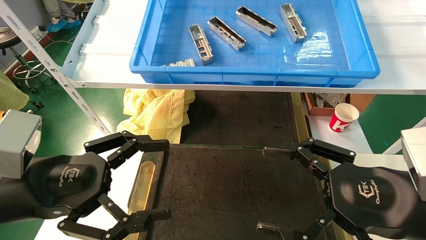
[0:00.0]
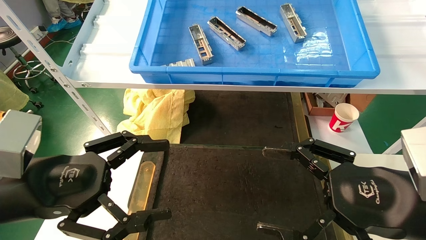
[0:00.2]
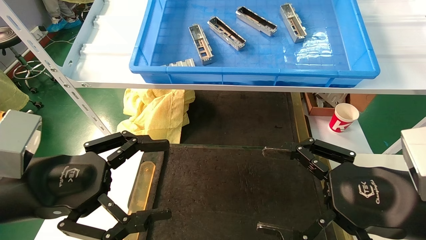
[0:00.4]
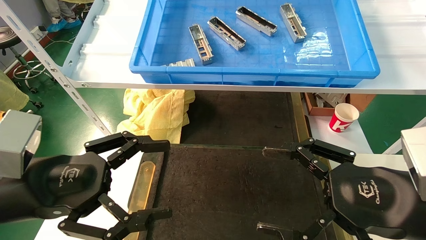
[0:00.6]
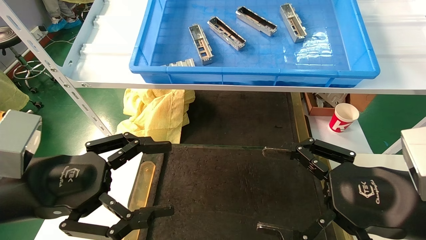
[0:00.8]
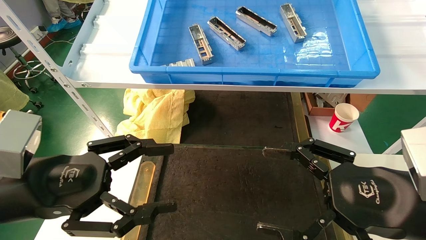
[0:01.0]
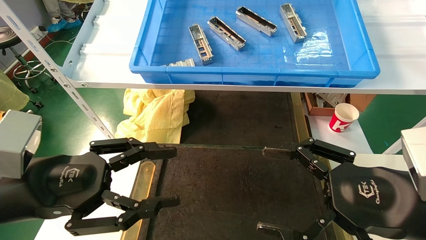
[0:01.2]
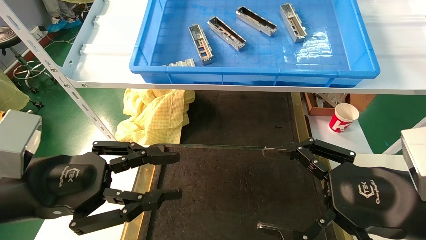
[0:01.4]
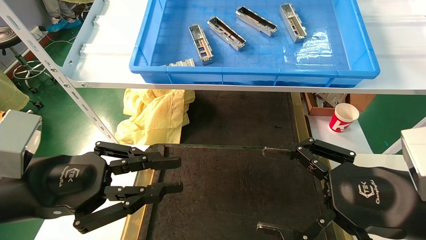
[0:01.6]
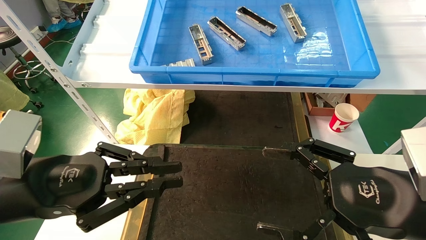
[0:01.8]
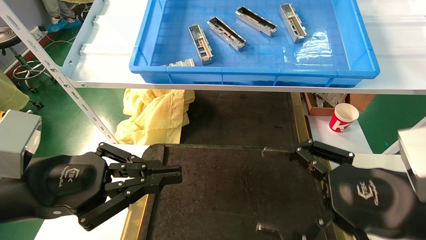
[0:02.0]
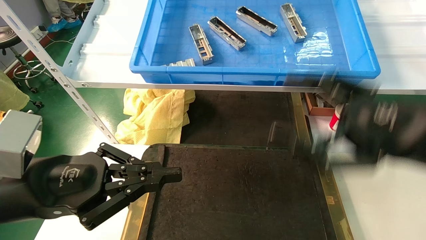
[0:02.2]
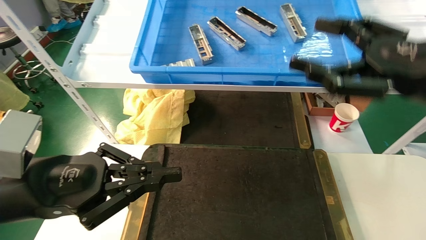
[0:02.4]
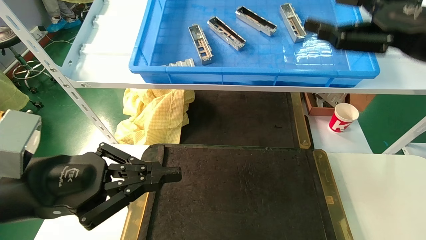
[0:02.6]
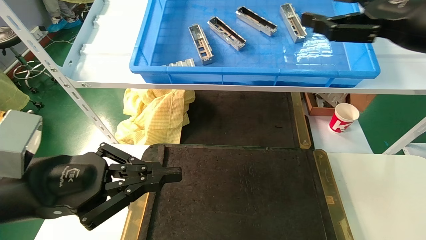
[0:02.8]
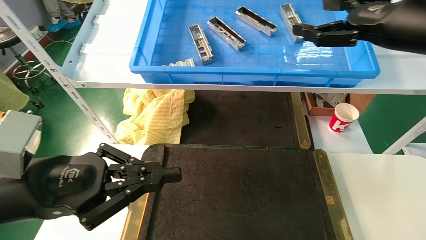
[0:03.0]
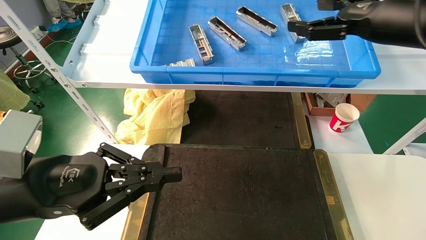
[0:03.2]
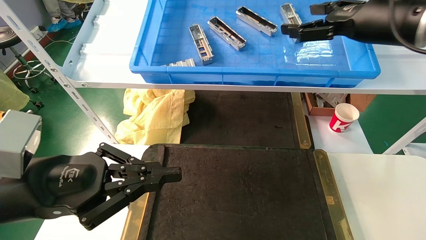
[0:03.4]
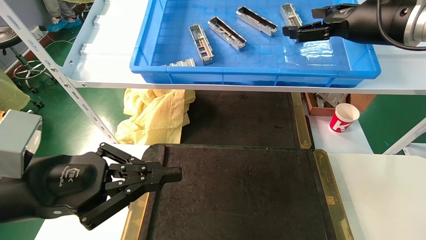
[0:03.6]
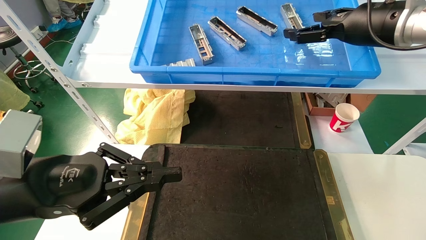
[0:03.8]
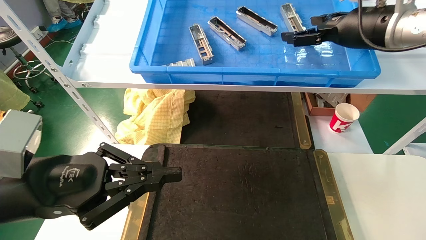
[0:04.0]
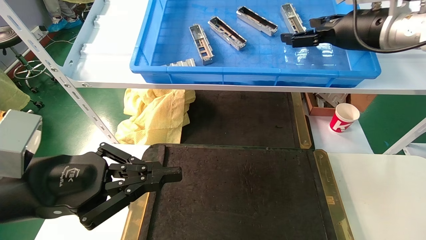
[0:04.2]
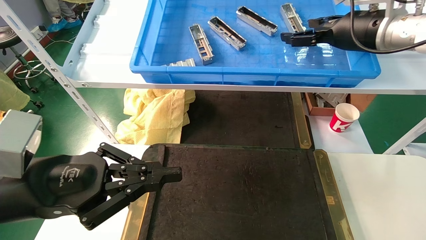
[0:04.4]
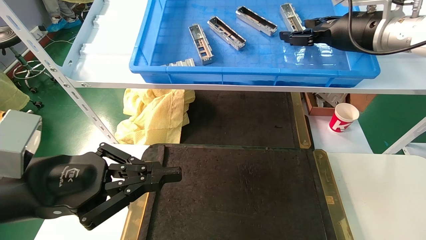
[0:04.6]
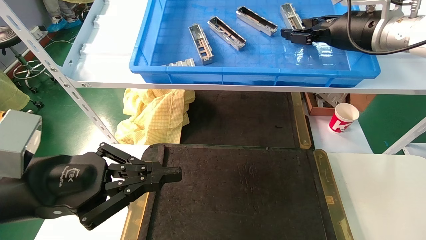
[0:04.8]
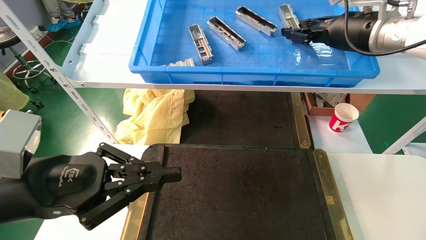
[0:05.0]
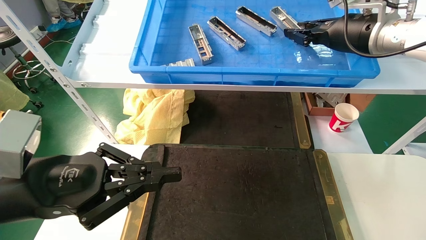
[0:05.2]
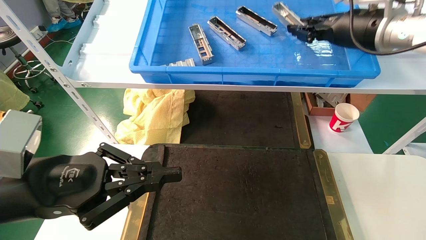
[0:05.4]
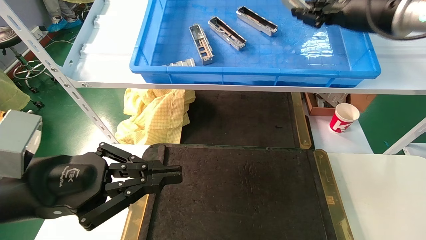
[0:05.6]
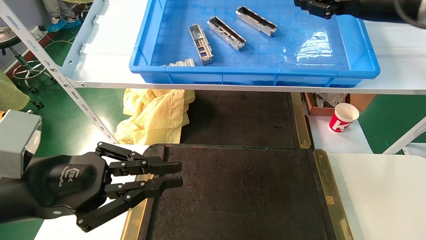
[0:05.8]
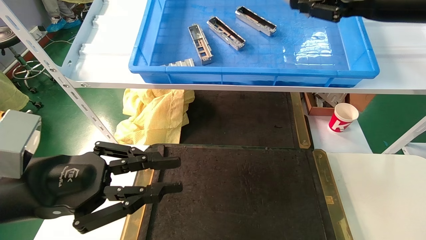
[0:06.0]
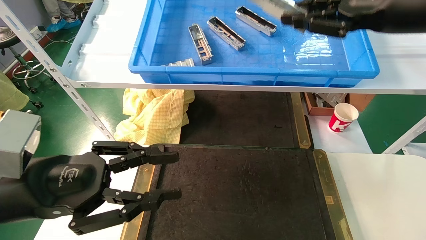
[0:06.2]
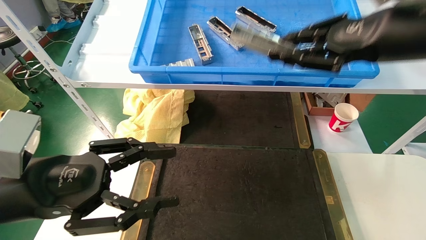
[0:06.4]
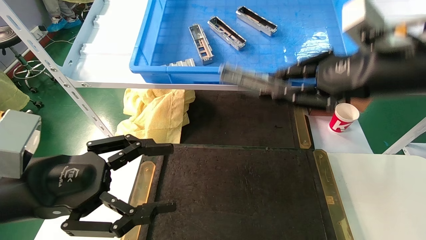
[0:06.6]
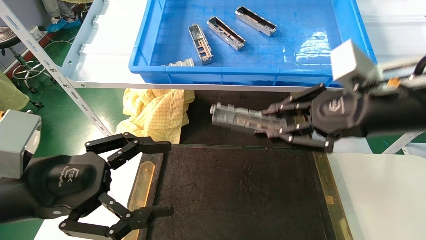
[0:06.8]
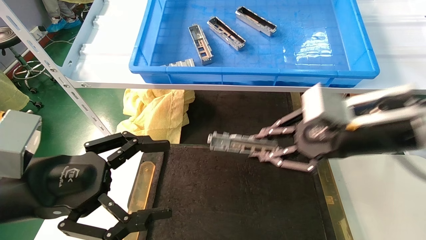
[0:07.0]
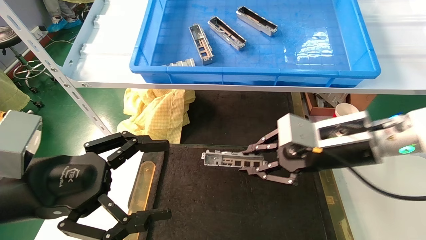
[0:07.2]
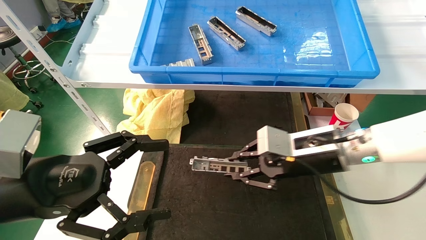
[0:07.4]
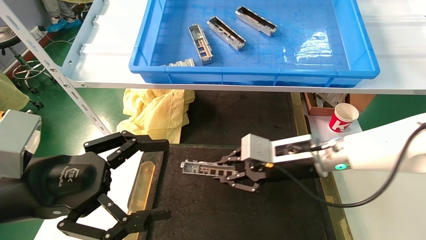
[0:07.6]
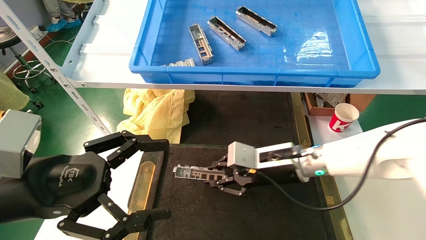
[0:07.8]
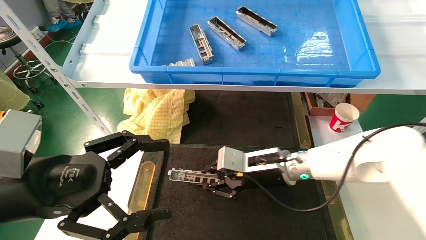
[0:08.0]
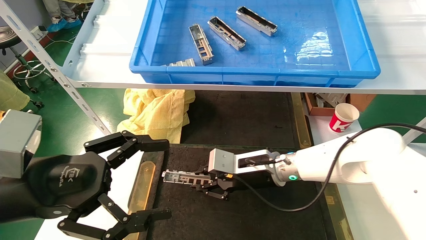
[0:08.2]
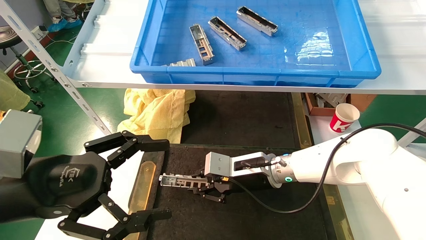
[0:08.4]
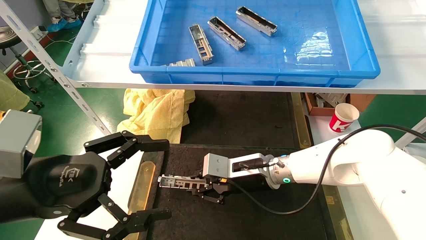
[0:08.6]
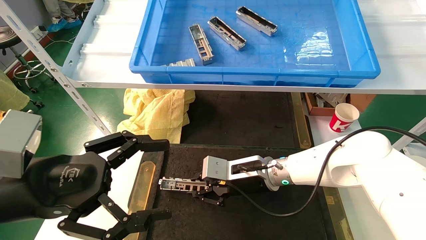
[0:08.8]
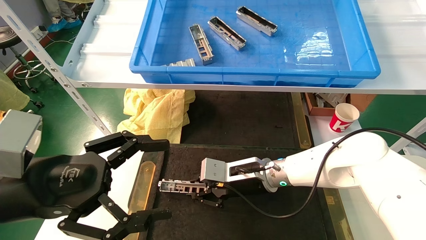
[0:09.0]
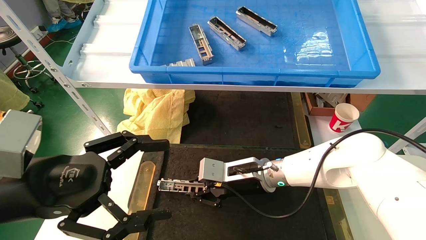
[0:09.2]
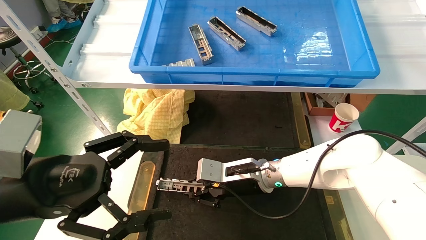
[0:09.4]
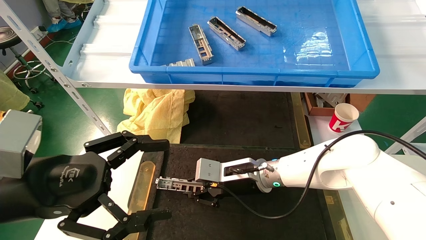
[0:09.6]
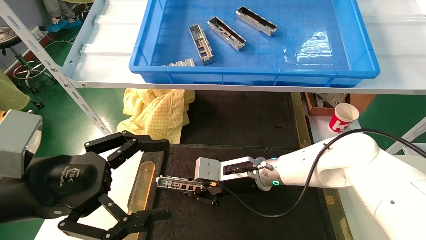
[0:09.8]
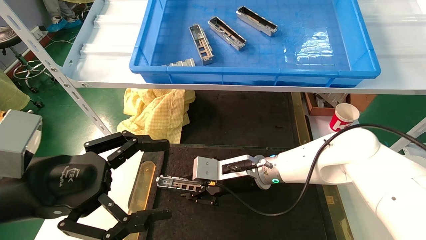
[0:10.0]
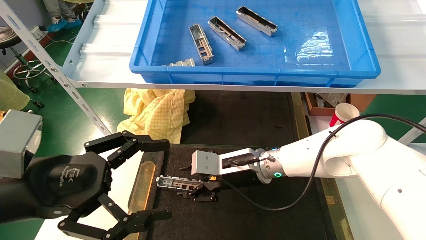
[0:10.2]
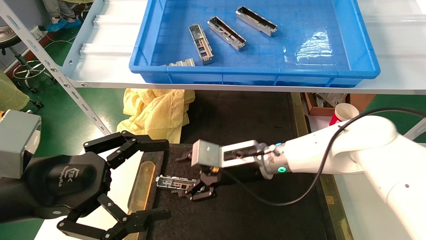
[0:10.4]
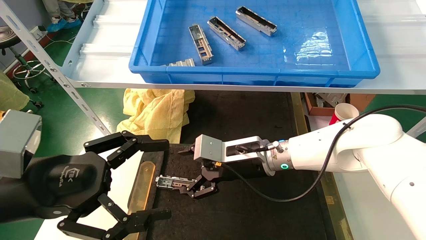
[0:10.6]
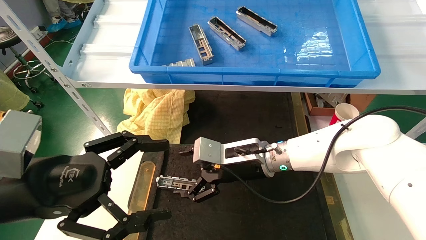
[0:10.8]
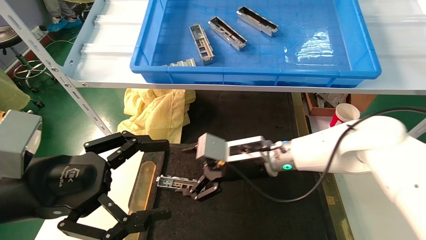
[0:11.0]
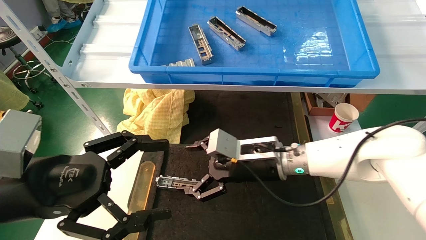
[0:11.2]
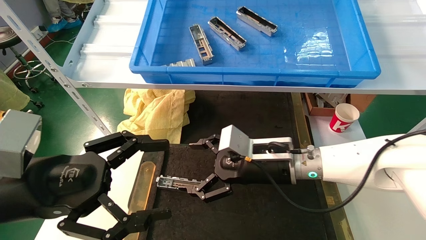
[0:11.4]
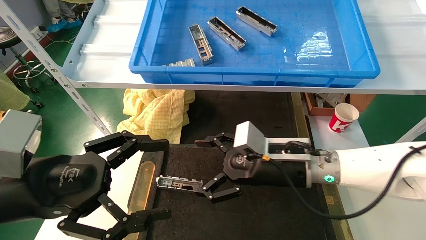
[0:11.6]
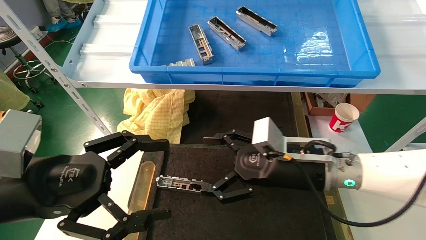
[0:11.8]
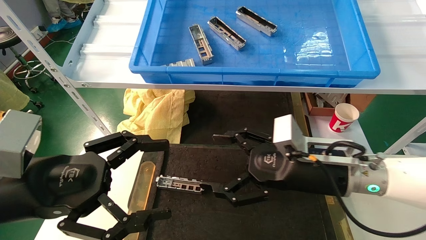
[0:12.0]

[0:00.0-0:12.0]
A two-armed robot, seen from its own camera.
Task of the whole recording: grasp the part and place them on the black container.
Step, 0:02.2 to 0:05.6: Pick up and lift the front USB bracket from the feeding area.
Step, 0:05.8 to 0:10.0: Place the front USB bracket into the box.
0:00.0 to 0:01.6: The left gripper closes its fingers.
0:01.6 to 0:03.0: The left gripper closes its fingers. Meanwhile the right gripper moves upward and forward, about 20 cm.
0:03.0 to 0:04.4: The right gripper travels forward by approximately 10 cm.
0:04.4 to 0:06.0: The right gripper travels backward by about 10 cm, and closes its fingers.
0:06.0 to 0:07.6: The left gripper opens, while the right gripper shifts about 30 cm downward and to the left.
0:07.6 to 0:09.0: The right gripper heads to the left and downward, covering approximately 10 cm.
0:09.0 to 0:10.4: The right gripper opens up.
0:10.4 to 0:12.0: The right gripper travels to the right and backward by approximately 15 cm, and opens.

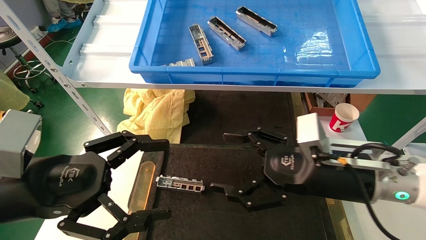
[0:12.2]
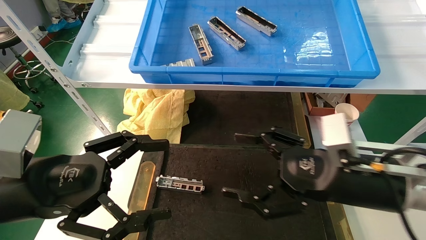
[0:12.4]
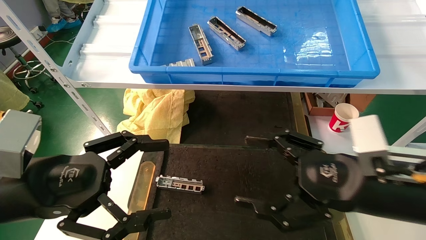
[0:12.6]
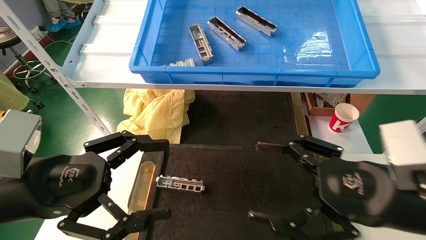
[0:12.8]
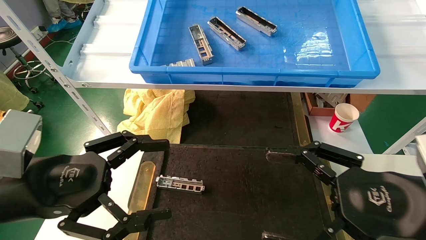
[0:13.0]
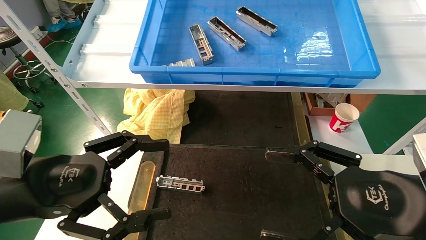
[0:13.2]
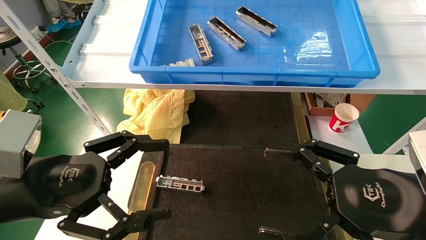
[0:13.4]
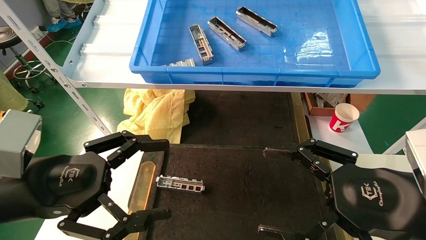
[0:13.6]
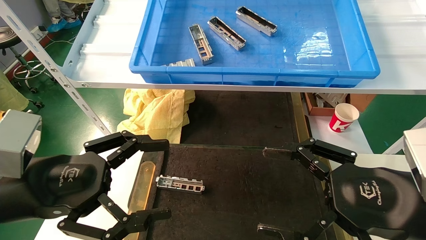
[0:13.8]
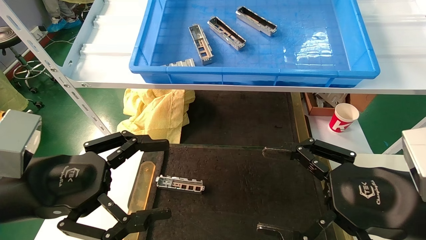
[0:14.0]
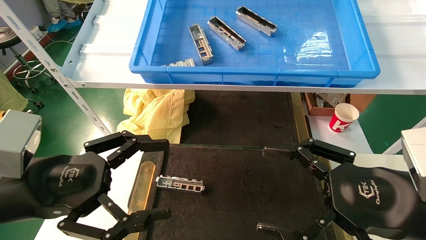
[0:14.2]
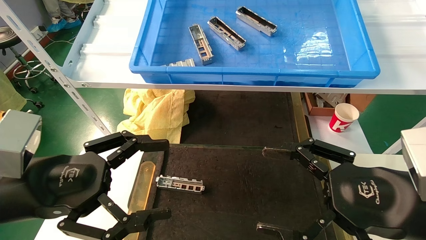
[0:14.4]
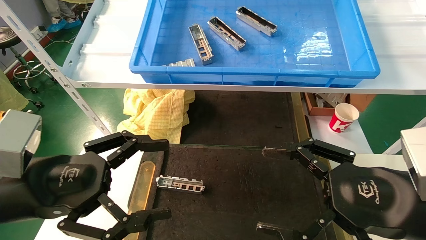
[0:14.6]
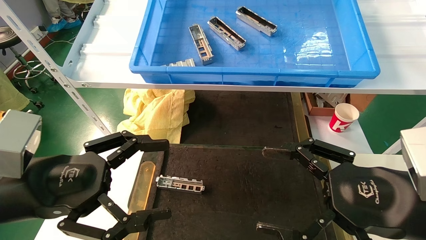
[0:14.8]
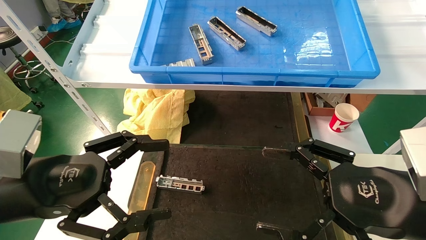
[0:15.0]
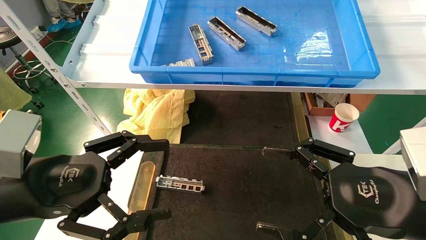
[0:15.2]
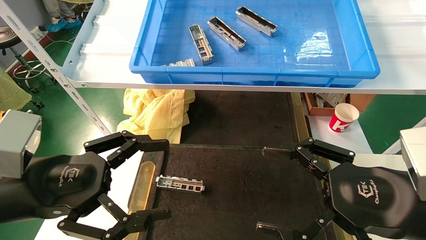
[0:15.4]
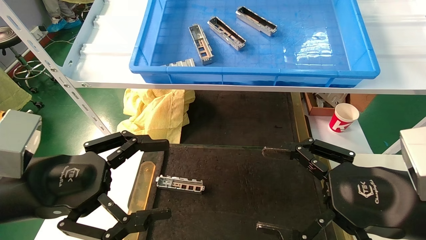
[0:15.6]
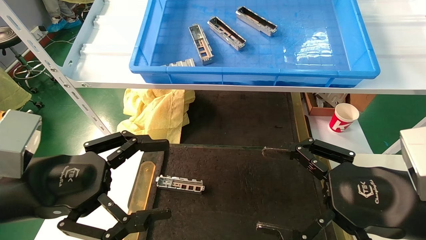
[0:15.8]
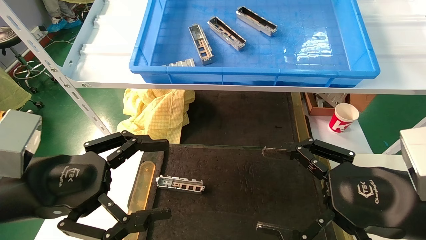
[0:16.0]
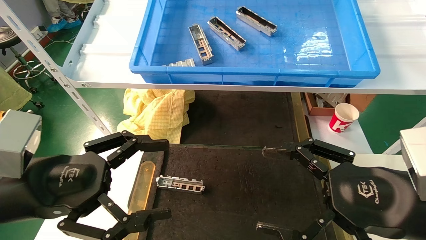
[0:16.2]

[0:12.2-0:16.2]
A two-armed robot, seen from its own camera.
Task of the whole recording: grasp the part and place them on the black container.
0:12.2 to 0:13.6: The right gripper shifts some 10 cm backward and to the right.
0:13.6 to 0:16.2: Both grippers stay put.
